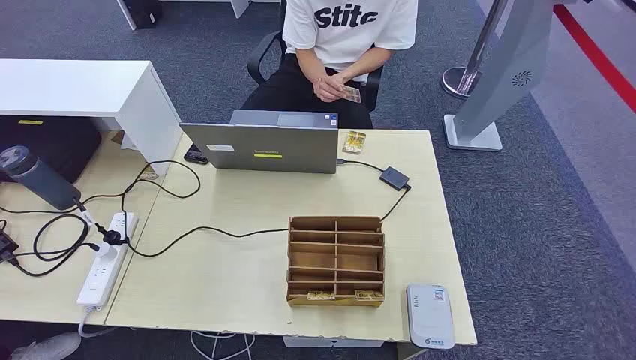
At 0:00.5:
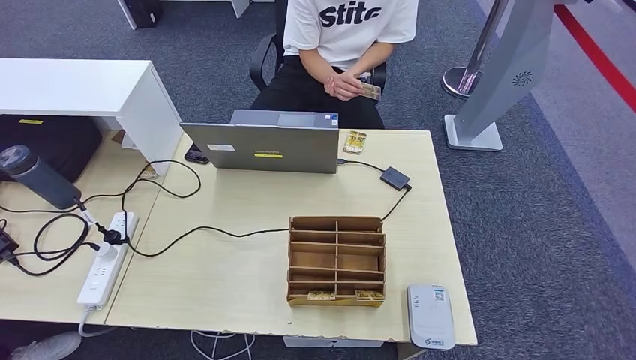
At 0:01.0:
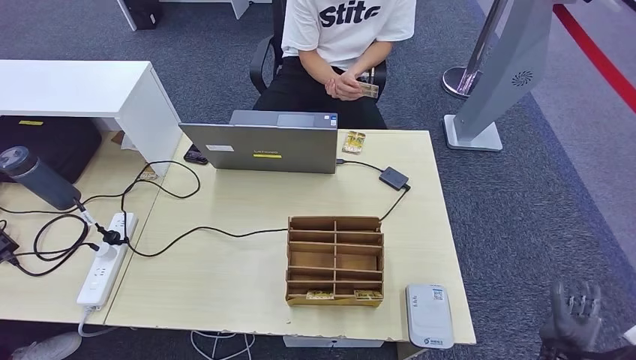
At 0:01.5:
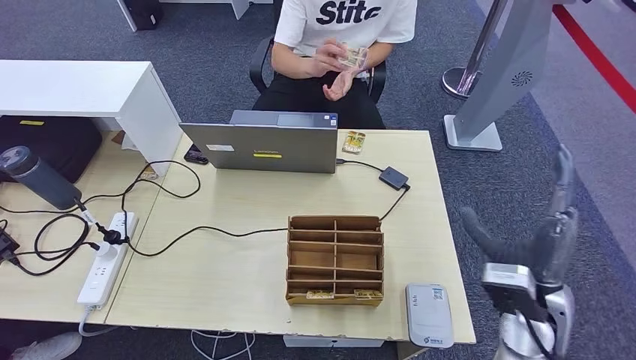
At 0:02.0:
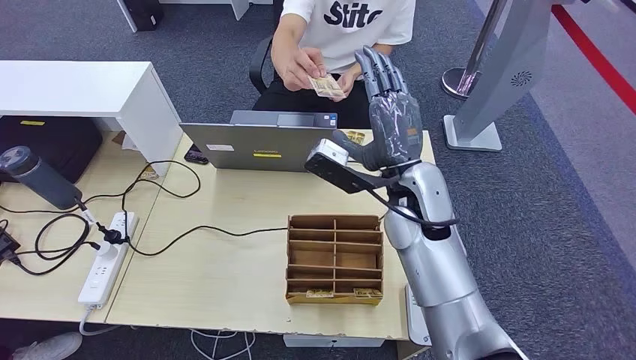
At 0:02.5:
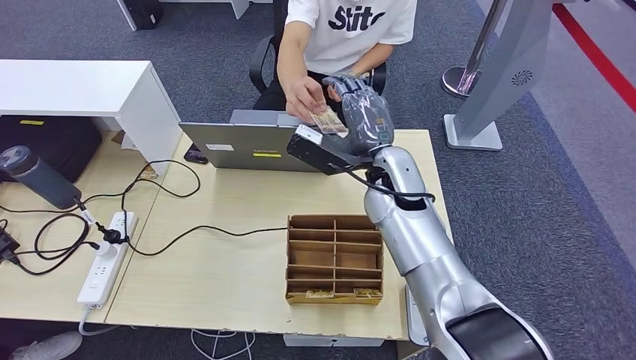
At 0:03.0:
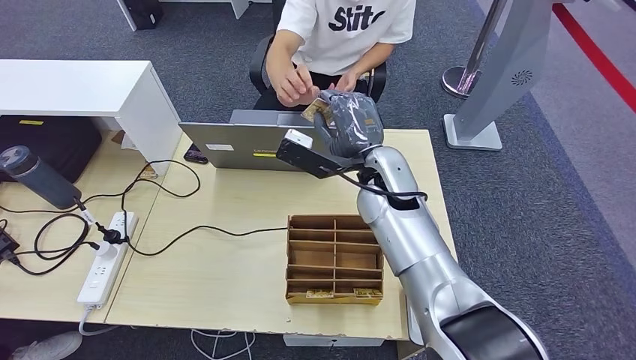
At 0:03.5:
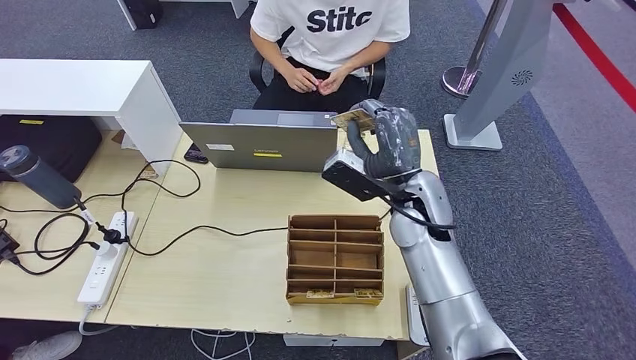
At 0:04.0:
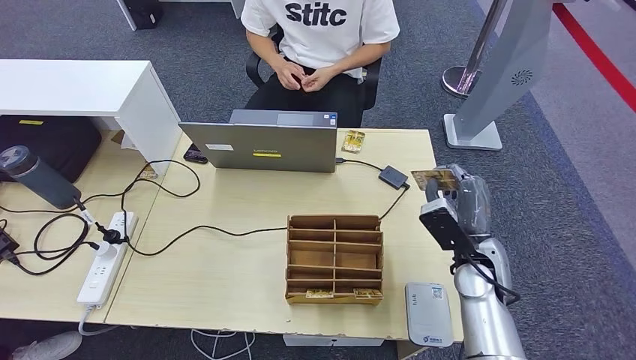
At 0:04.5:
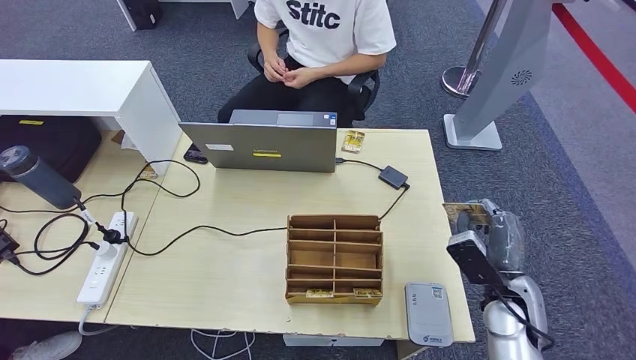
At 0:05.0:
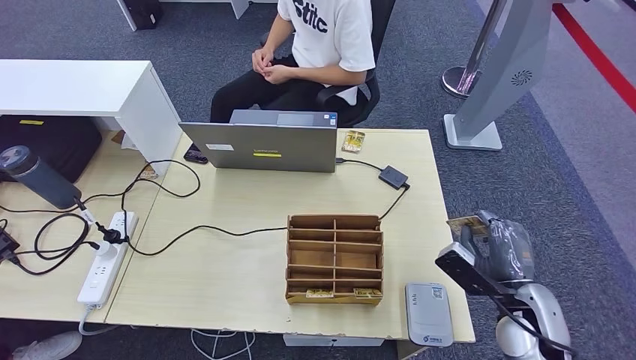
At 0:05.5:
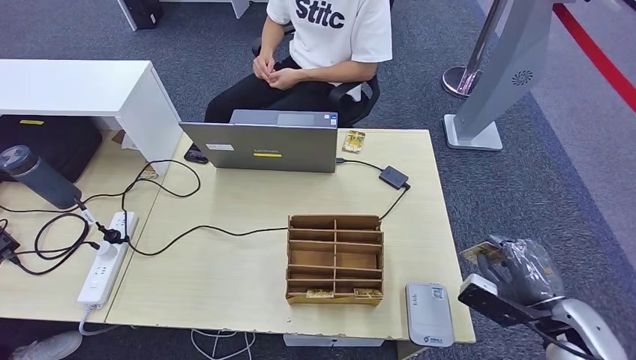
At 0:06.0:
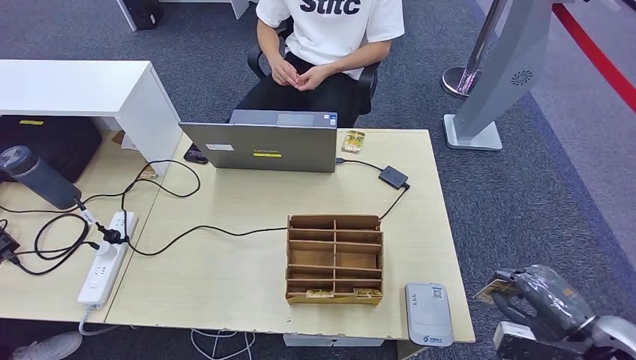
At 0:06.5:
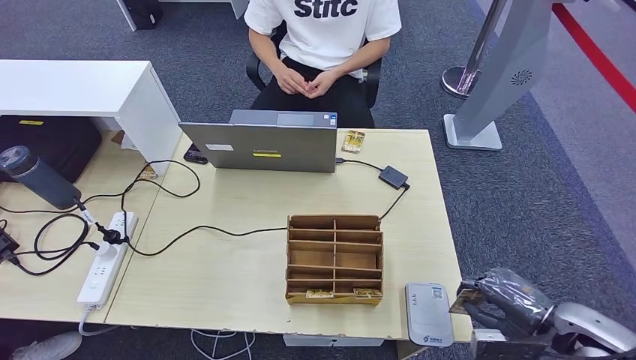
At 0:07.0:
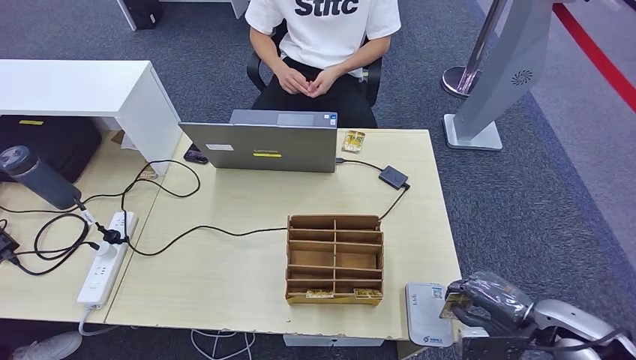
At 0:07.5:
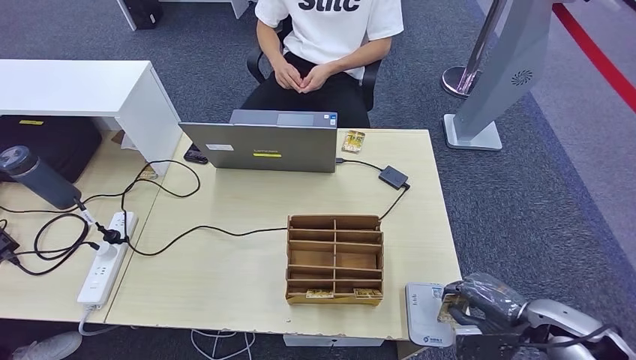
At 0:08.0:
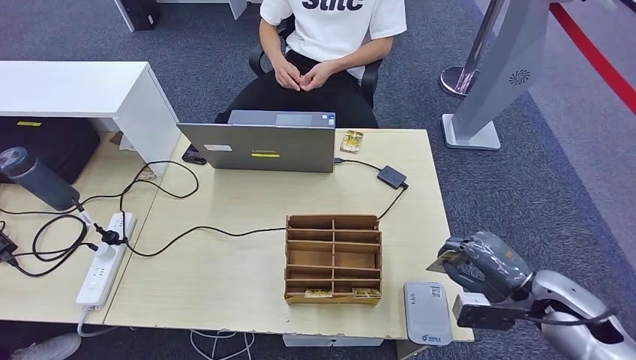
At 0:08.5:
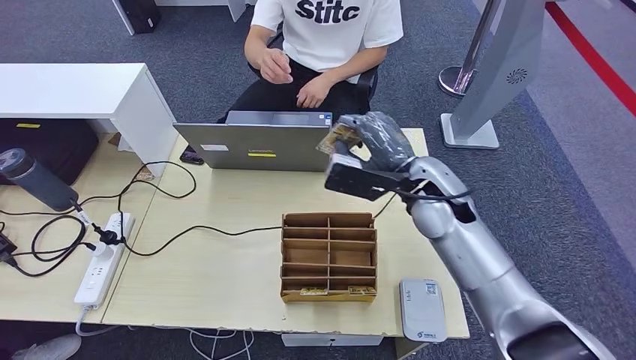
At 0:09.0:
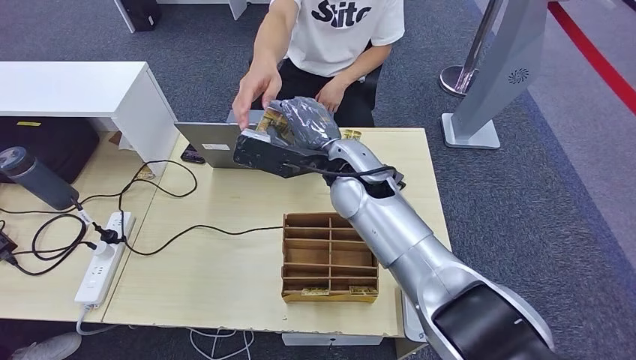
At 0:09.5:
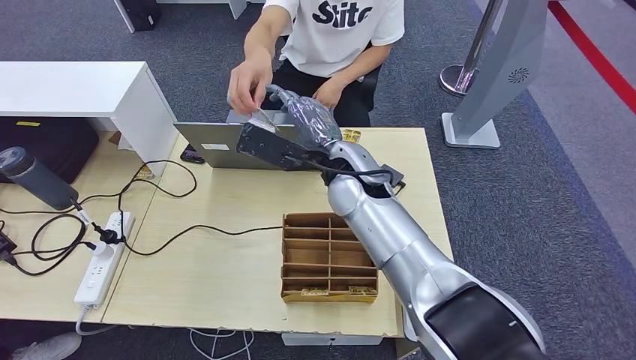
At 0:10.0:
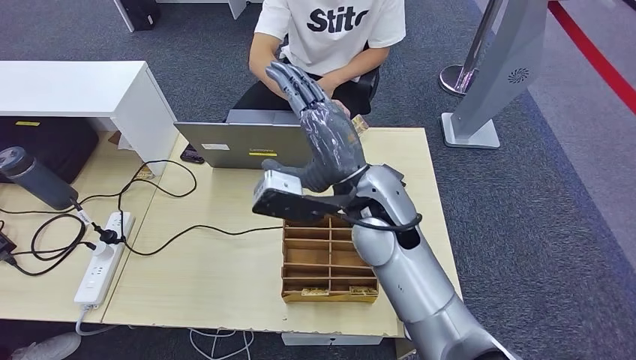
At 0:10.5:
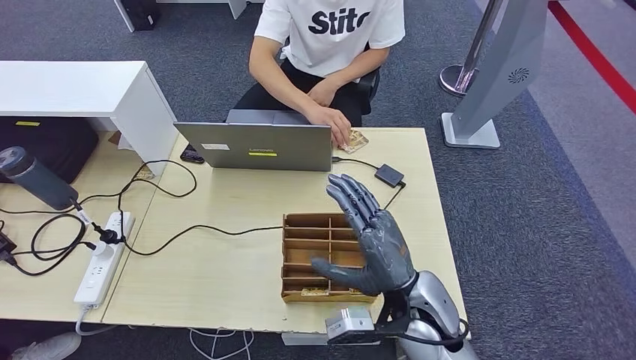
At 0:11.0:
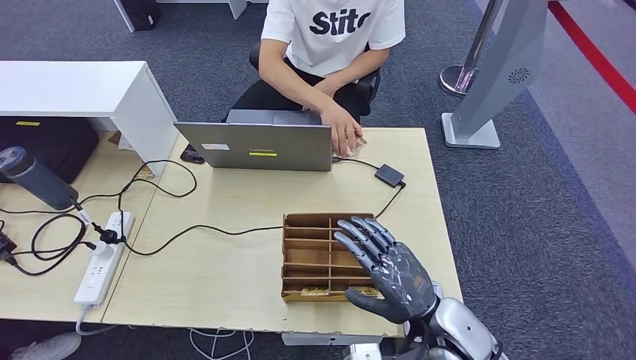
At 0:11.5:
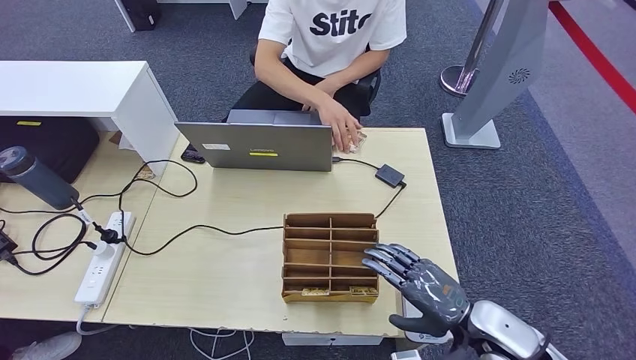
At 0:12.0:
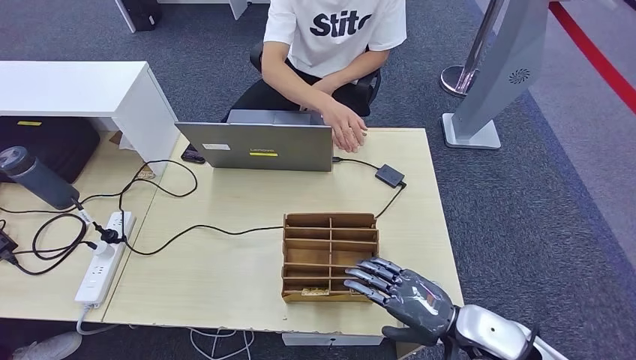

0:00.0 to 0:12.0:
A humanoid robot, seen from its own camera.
Step, 0:00.0 to 0:03.5: Take the ID card from the person's hand.
Step, 0:04.0 to 0:07.5: Place the ID card on the card reader.
Step, 0:08.0 to 0:10.0: Hand the ID card to the person.
0:02.0 to 0:04.0: The right hand travels downward and to the right by some 20 cm.
0:04.0 to 0:06.0: The right hand moves to the right and backward, roughly 25 cm.
0:06.0 to 0:08.0: The right hand heads forward and to the left, covering approximately 10 cm.
0:10.0 to 0:12.0: The right hand moves to the right, downward and backward, about 30 cm.

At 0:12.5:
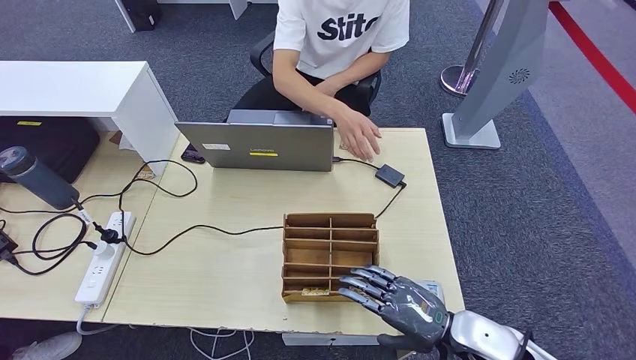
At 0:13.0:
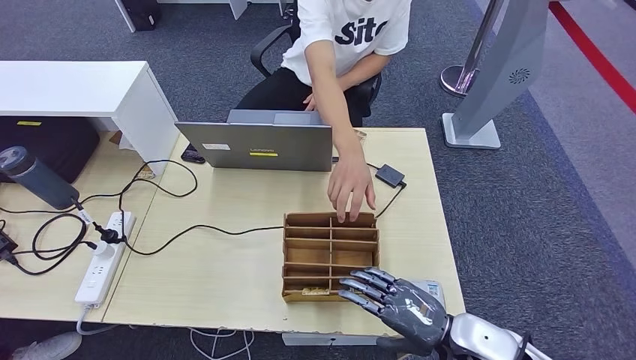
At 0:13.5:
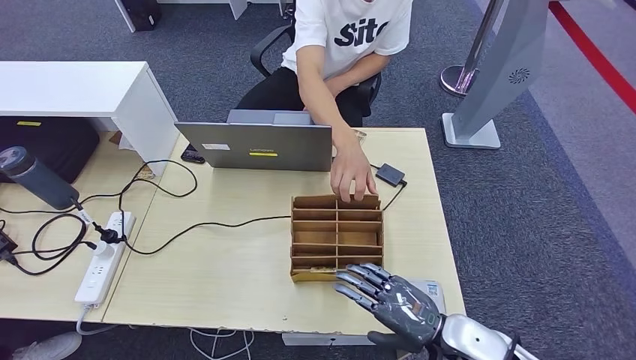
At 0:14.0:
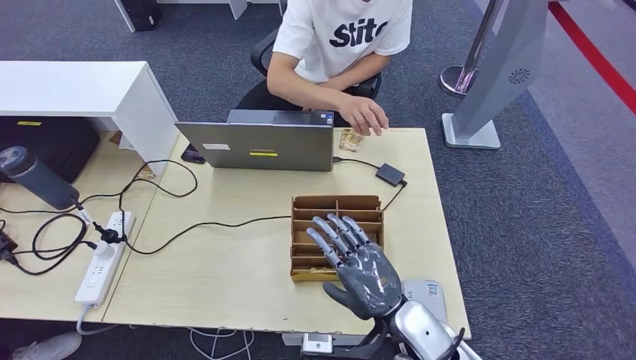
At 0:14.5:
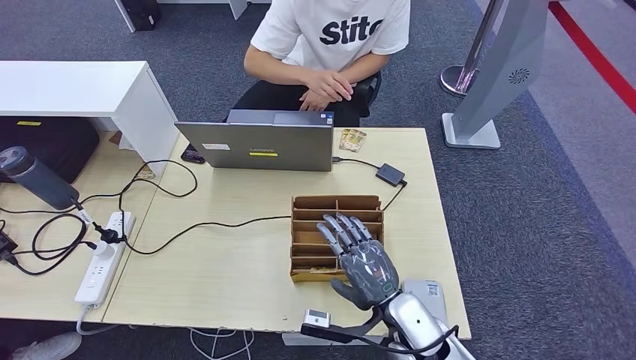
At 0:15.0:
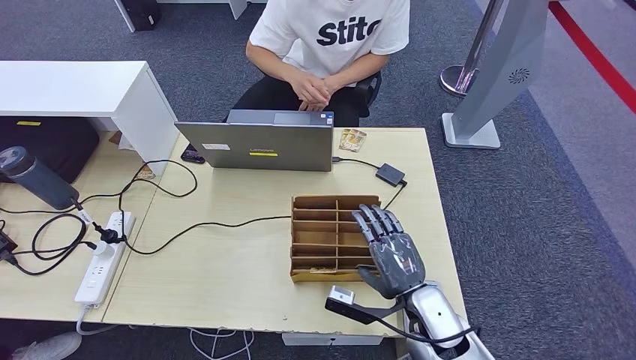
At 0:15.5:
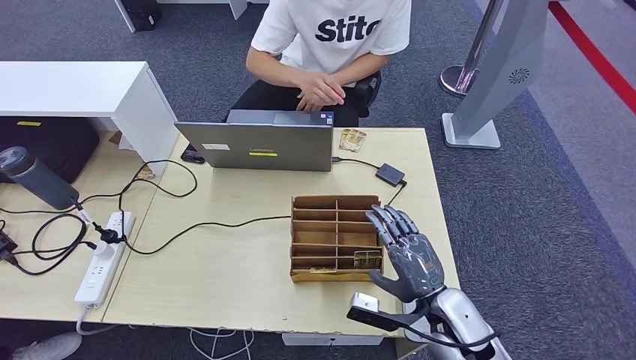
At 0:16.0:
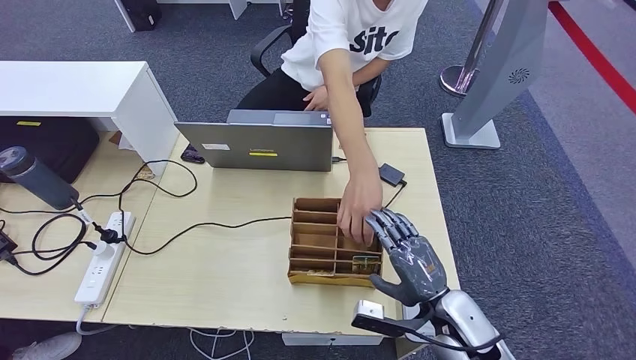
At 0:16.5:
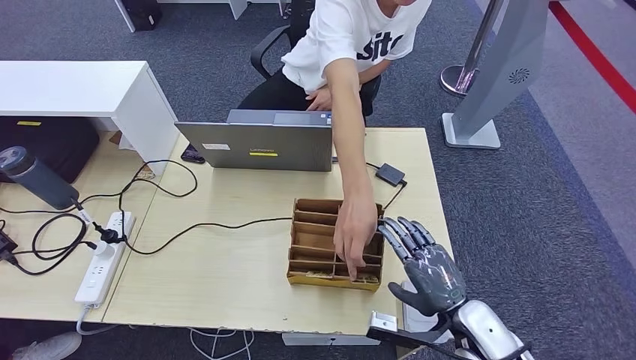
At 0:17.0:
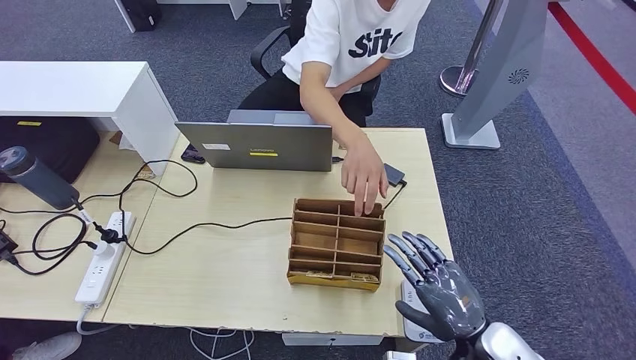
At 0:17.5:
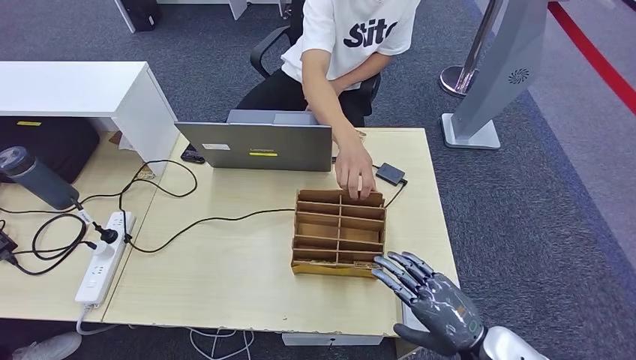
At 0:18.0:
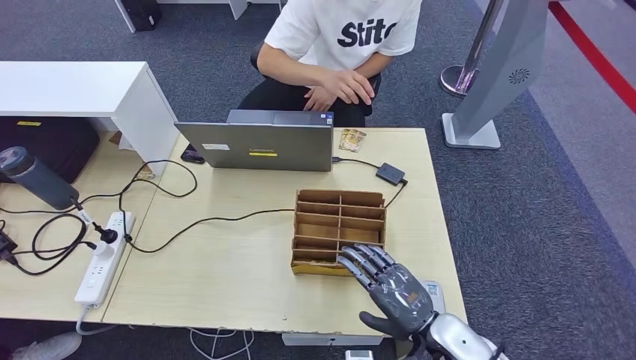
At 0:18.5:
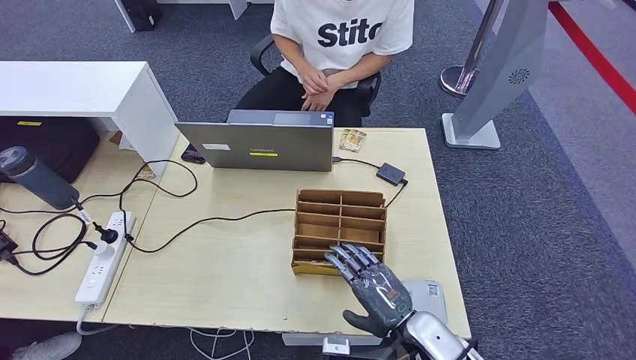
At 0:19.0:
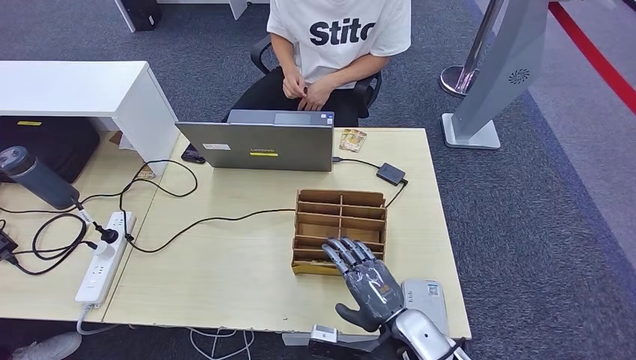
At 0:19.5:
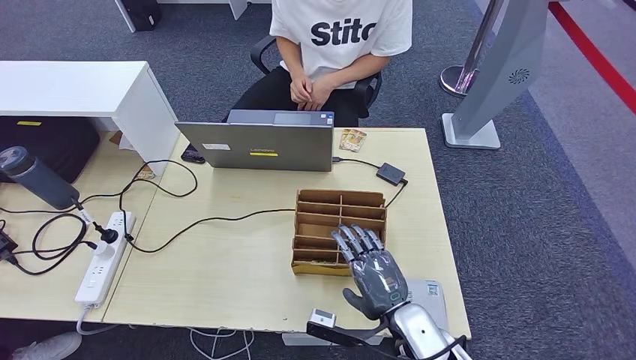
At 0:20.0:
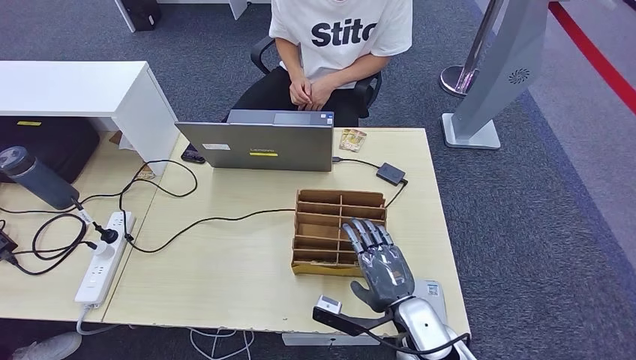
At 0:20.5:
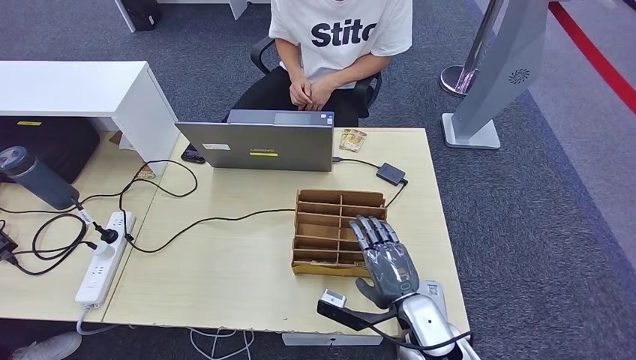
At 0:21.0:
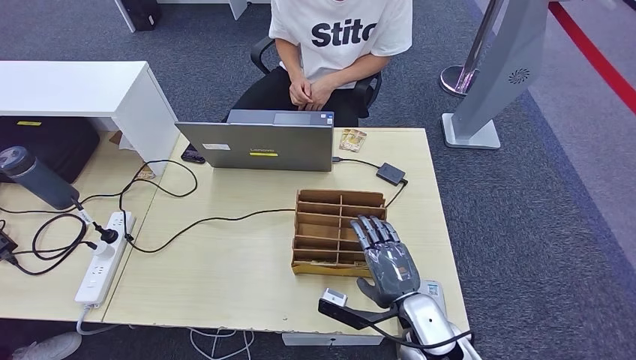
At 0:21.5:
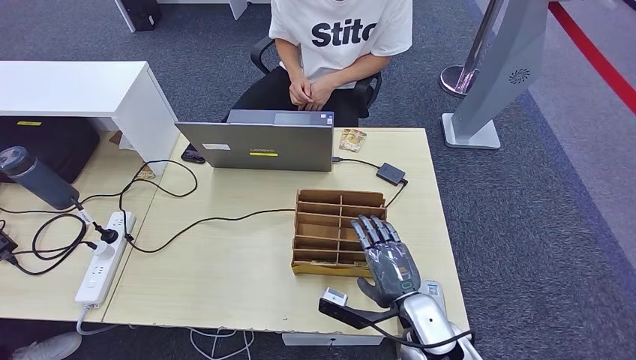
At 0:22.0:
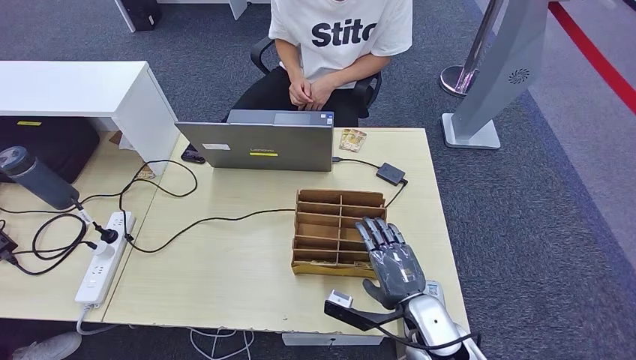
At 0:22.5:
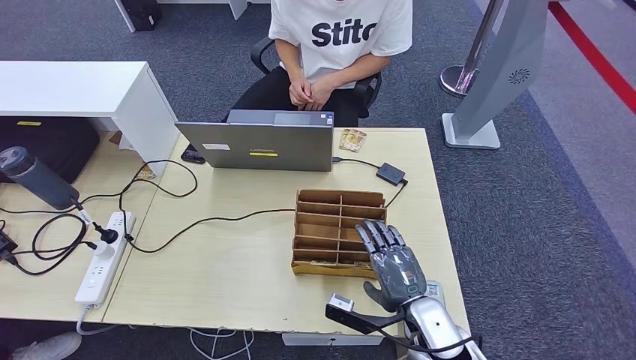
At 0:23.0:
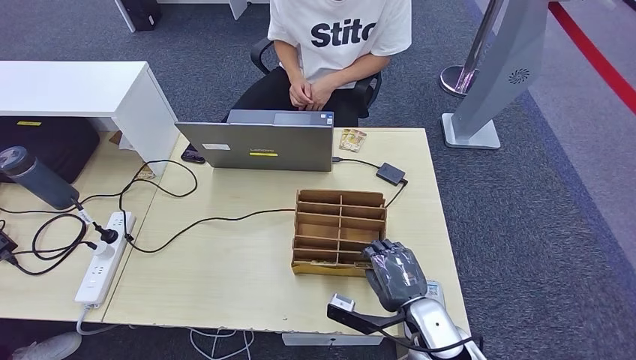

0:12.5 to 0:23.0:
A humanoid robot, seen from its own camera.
0:12.5 to 0:14.5: The right hand is displaced to the left by roughly 15 cm.
0:14.5 to 0:16.5: The right hand is displaced to the right by approximately 10 cm.
0:16.5 to 0:19.0: The right hand is displaced to the left by approximately 10 cm.
0:19.0 to 0:23.0: The hands move only a little.
